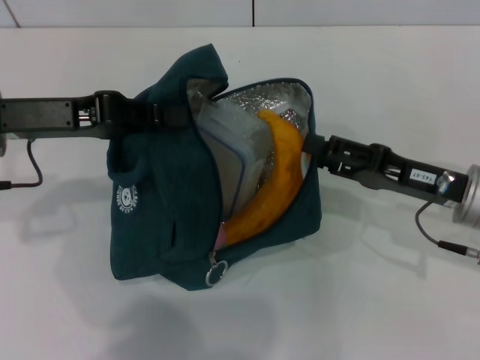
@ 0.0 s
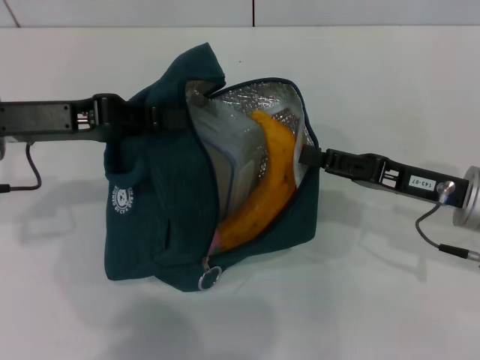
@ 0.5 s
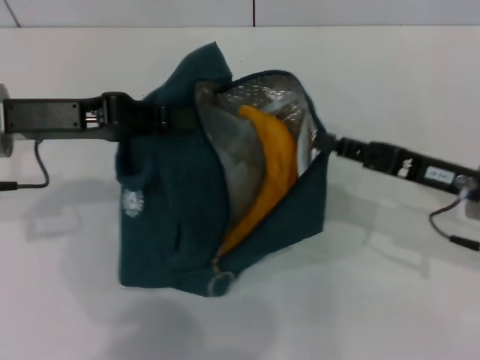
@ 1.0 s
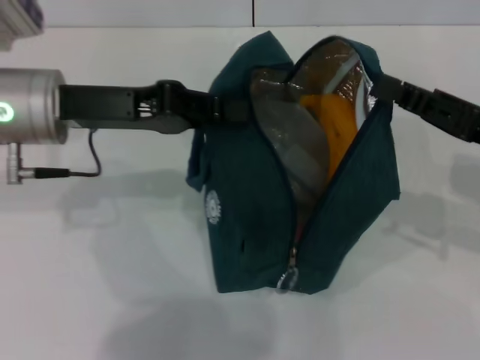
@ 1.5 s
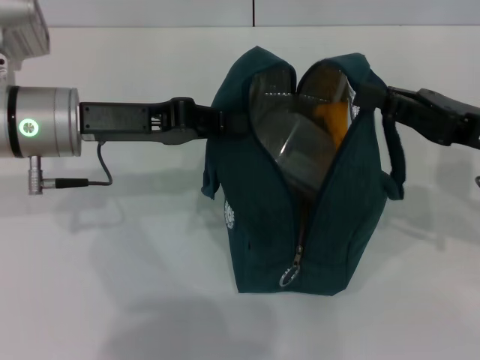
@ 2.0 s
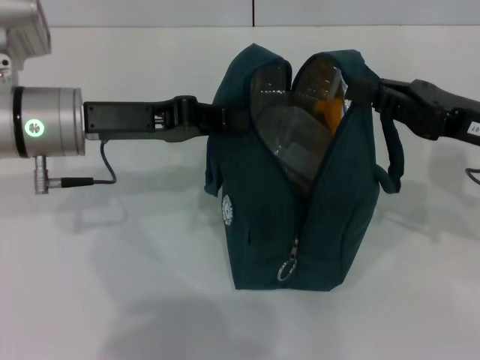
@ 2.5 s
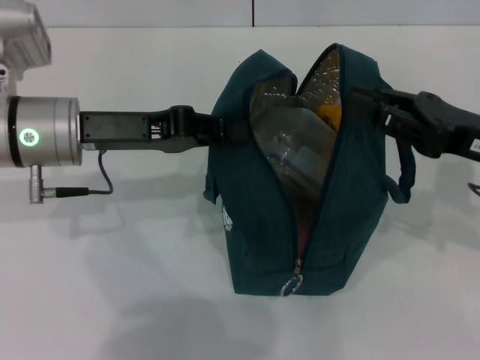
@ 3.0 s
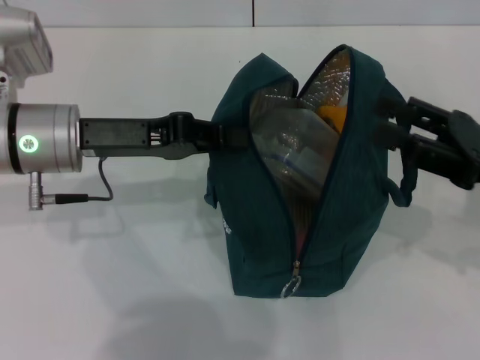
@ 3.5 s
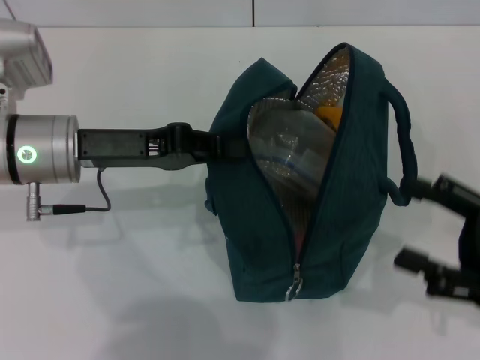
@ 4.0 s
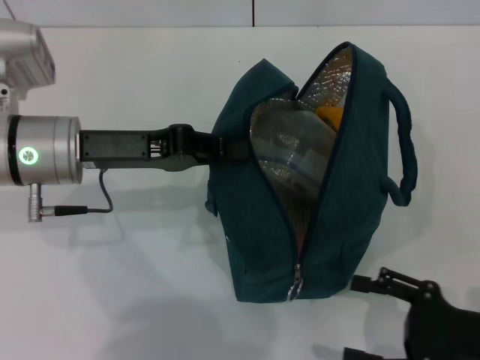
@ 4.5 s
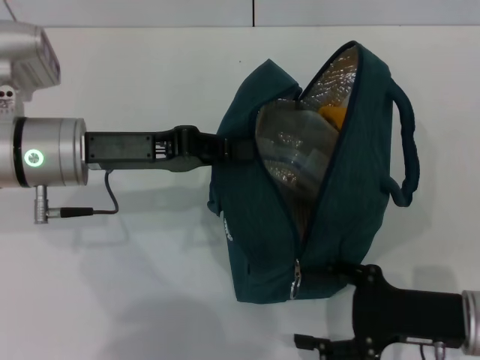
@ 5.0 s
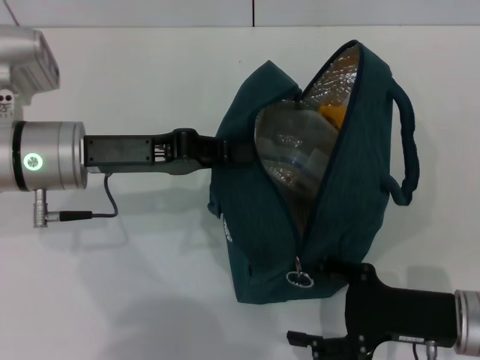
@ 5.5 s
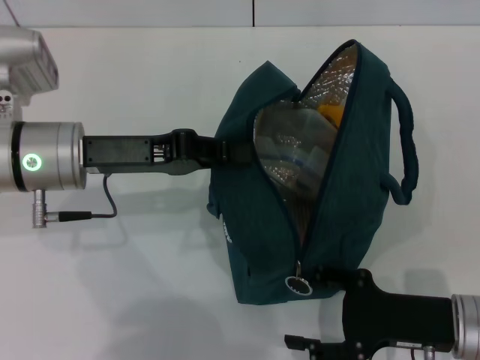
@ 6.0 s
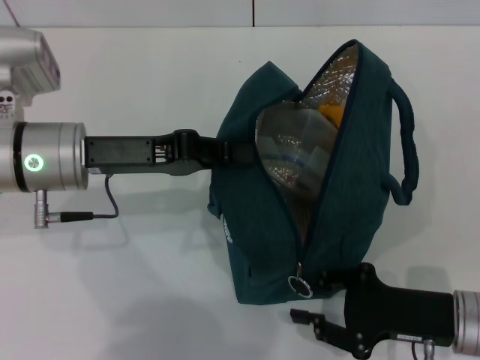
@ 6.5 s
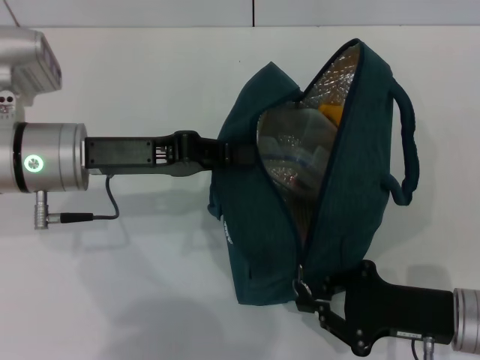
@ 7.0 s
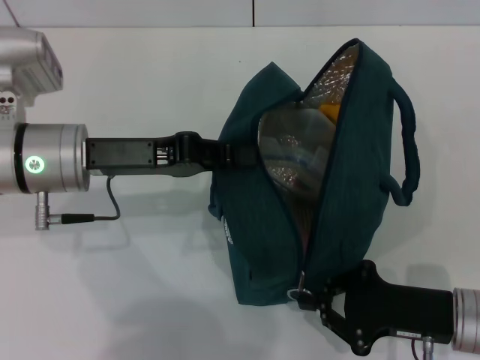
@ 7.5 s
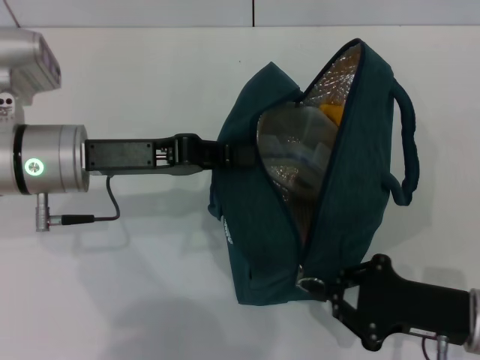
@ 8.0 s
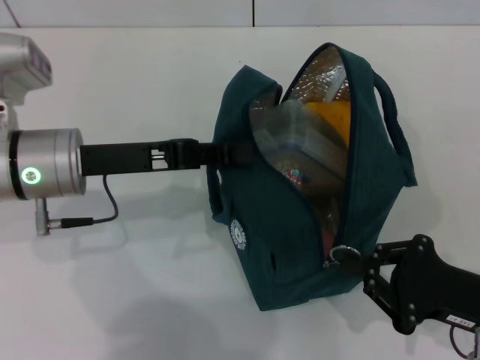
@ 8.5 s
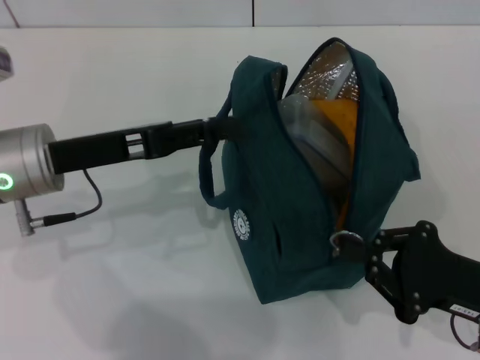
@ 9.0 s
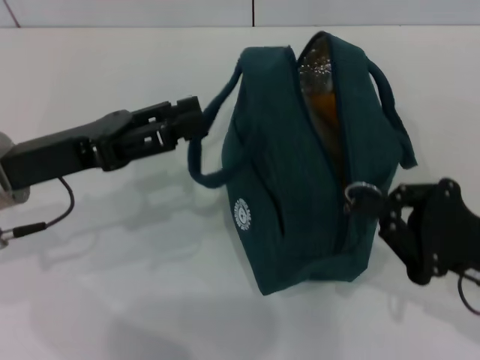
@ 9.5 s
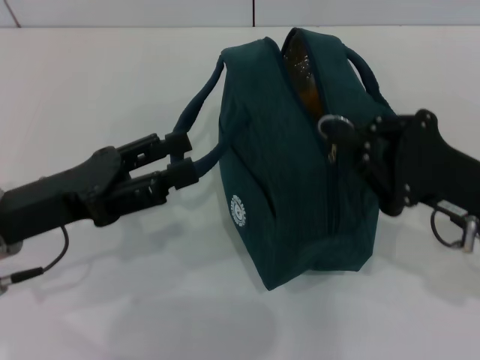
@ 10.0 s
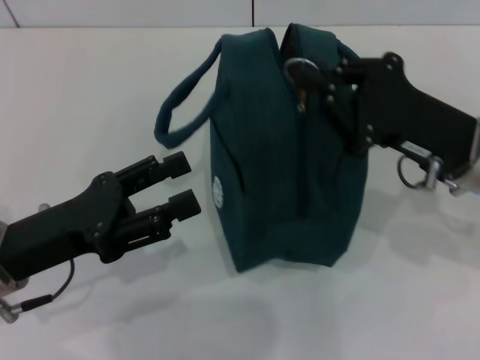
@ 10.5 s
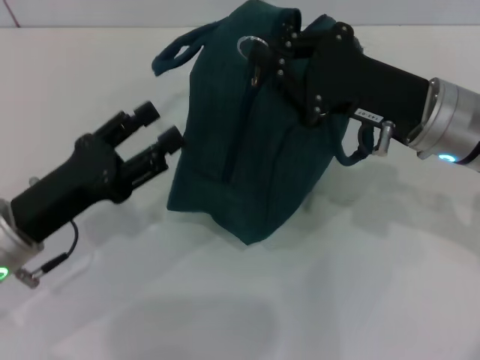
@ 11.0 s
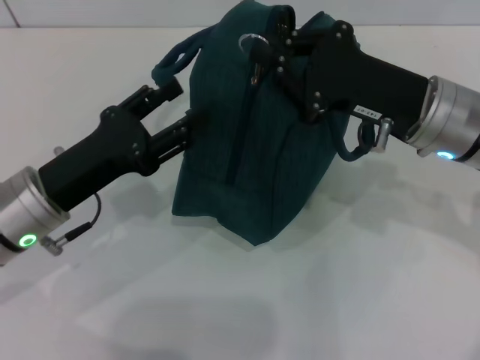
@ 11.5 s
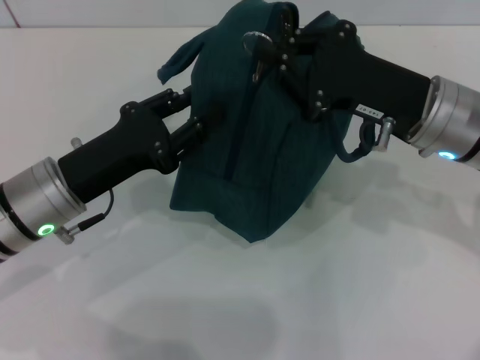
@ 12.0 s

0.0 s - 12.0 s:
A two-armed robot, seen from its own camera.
Step, 0.0 s - 3.5 s: Hold the lunch bag with your right hand.
Step, 4.0 s - 9.0 s: Hold the lunch bag with your left hand.
0.0 s - 2.0 s: The left gripper goes about 5 cm to the right; the right gripper heads upward, covering approximately 5 cm, and closes its fingers.
2.0 s - 4.0 s: The right gripper travels backward and downward by some 10 cm, and opens up.
4.0 s - 6.0 s: The right gripper shifts some 10 cm to the left and downward.
6.0 s - 8.0 s: The right gripper closes.
8.0 s - 10.0 s: The right gripper goes roughly 10 cm upward; the left gripper travels backward by approximately 5 cm, and opens its fingers.
10.0 s - 12.0 s: The left gripper ends up some 5 cm from where it was; the right gripper goes approximately 10 cm forward and to the left.

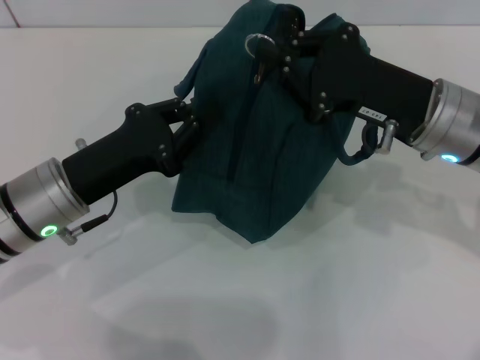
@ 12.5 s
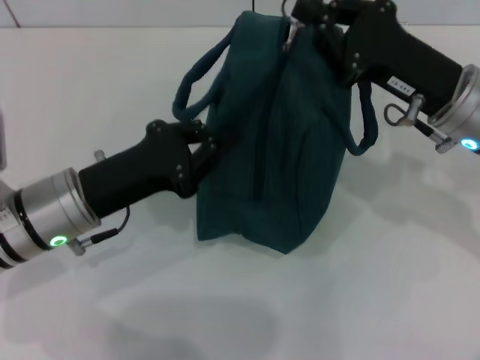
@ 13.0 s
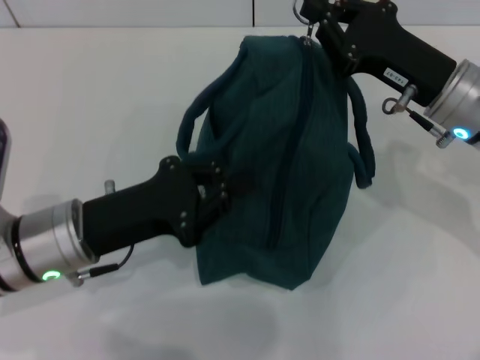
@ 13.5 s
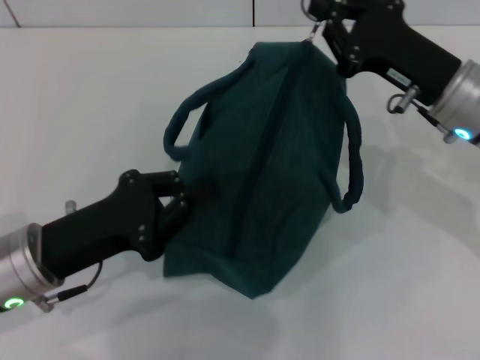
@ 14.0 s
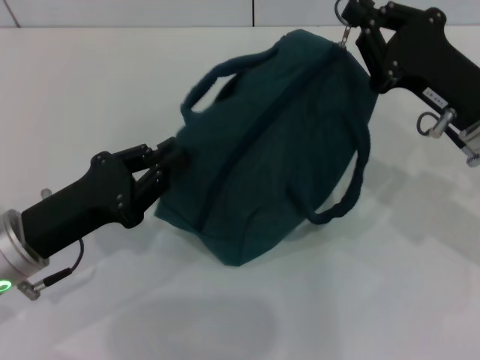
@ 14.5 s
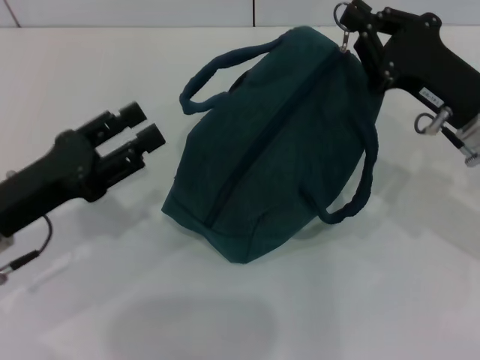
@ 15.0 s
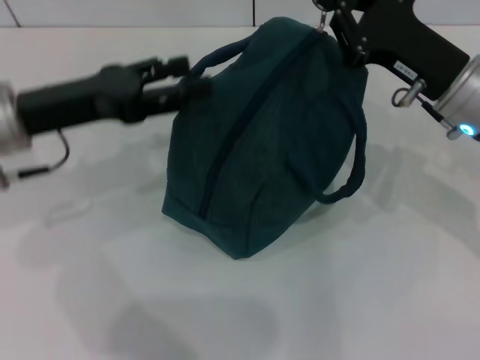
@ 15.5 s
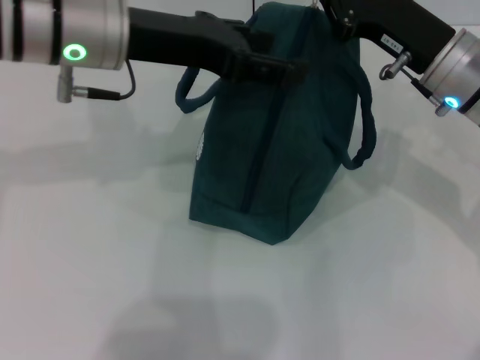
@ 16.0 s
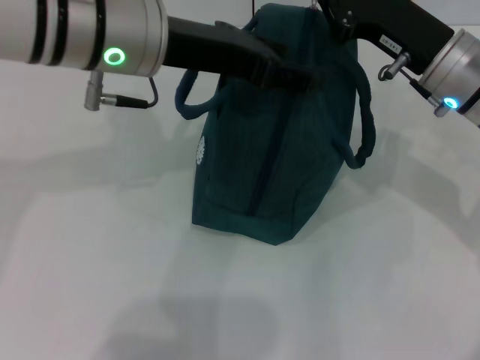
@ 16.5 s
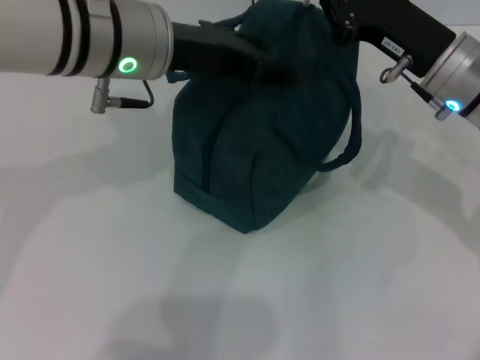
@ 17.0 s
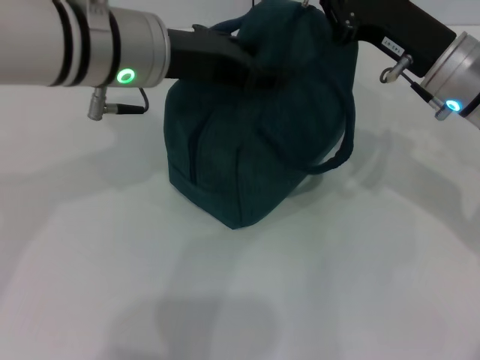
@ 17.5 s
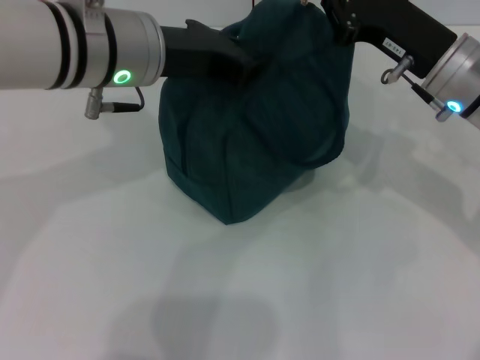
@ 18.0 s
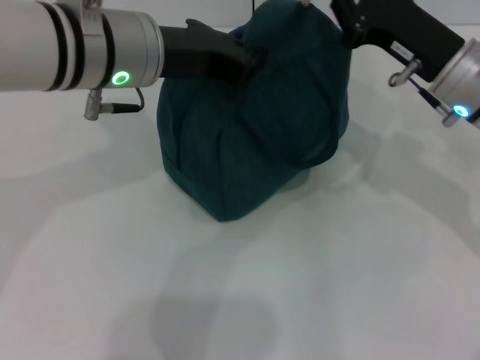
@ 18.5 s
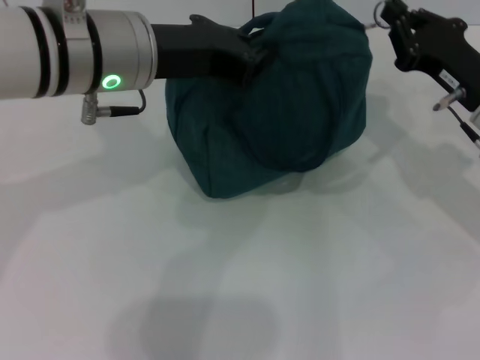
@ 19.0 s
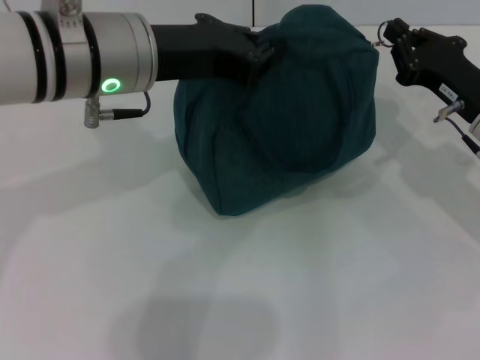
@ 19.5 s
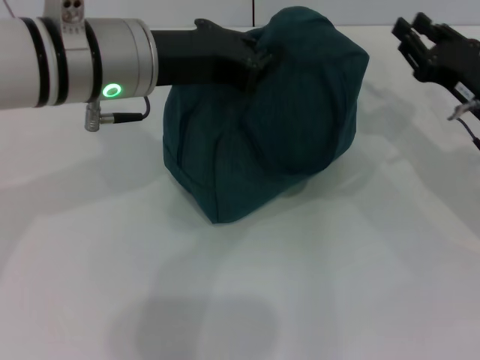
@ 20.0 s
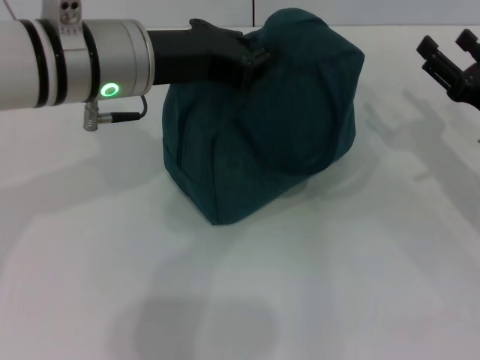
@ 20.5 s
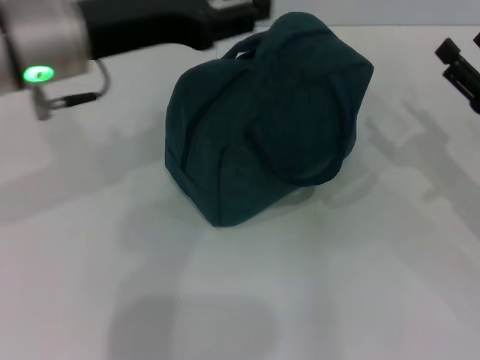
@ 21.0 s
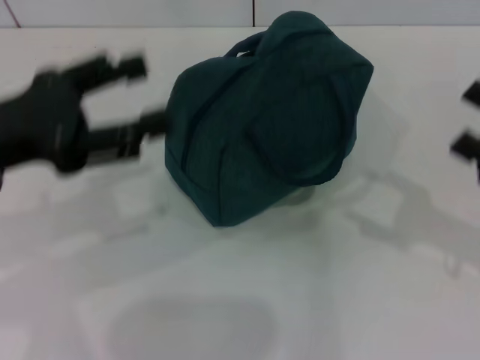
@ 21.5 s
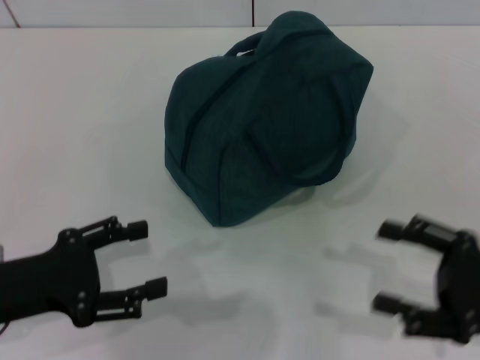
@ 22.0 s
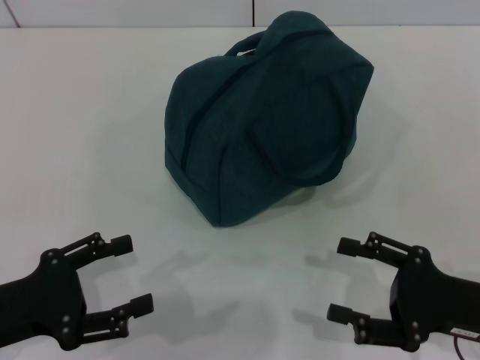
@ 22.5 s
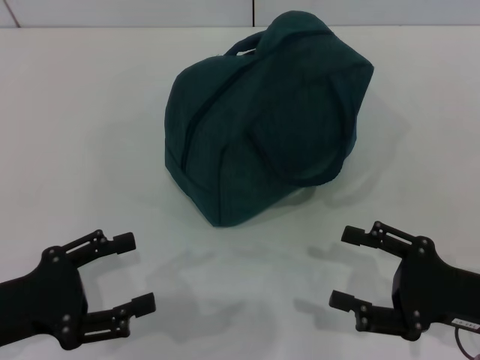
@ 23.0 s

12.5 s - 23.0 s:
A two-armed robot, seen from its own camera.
Step, 12.5 s - 20.0 s: Zip up the lunch bag with your right hand.
Step, 20.5 s - 21.0 s: Hold the lunch bag with your left hand.
12.5 s - 14.5 s: The left gripper changes place by roughly 5 cm.
14.5 s - 16.5 s: The right gripper moves forward, approximately 5 cm, while the left gripper goes approximately 25 cm upward, to the right and forward, and opens.
16.5 s - 19.0 s: The left gripper closes its fingers. Meanwhile the right gripper heads to the right, covering approximately 5 cm.
19.0 s - 21.0 s: The right gripper heads backward and to the right, covering approximately 10 cm, and opens; the left gripper shifts some 5 cm to the left, and opens.
21.0 s - 23.0 s: The right gripper is displaced backward by approximately 10 cm. The left gripper is displaced downward, backward and to the left by approximately 25 cm, and opens its fingers.

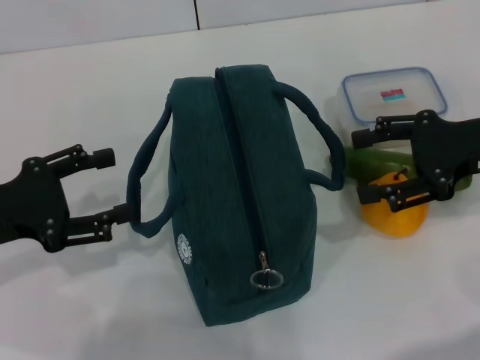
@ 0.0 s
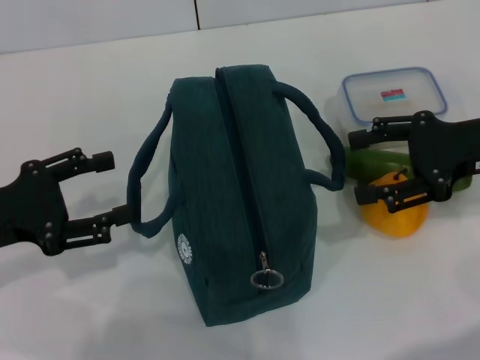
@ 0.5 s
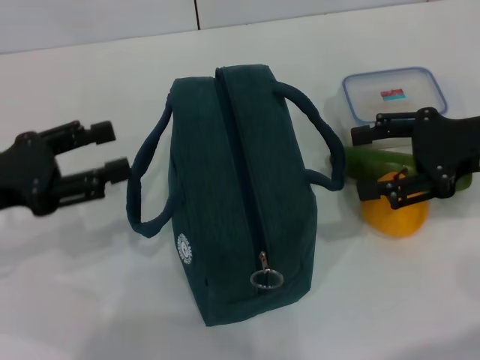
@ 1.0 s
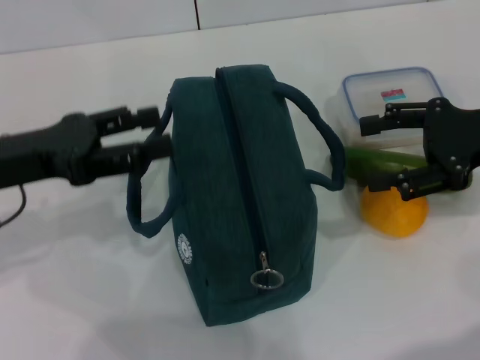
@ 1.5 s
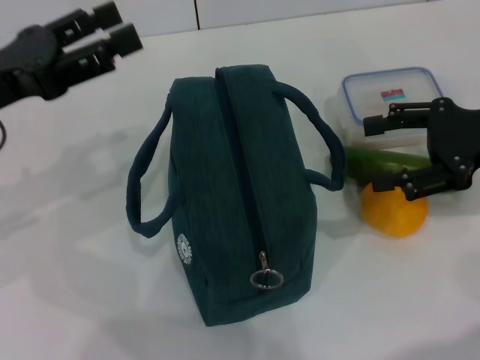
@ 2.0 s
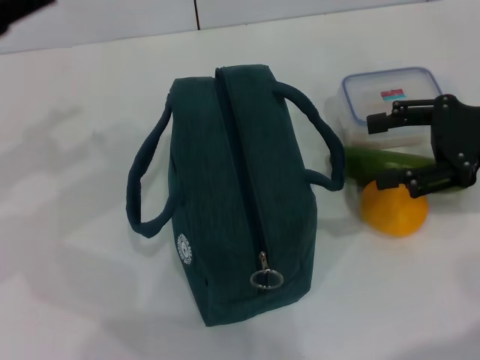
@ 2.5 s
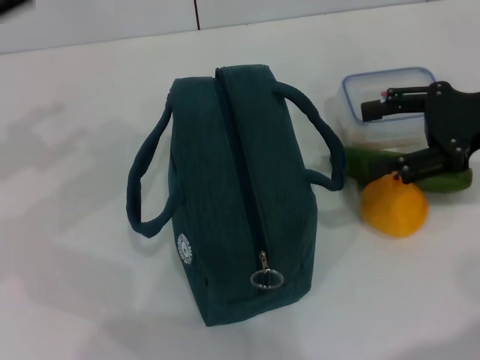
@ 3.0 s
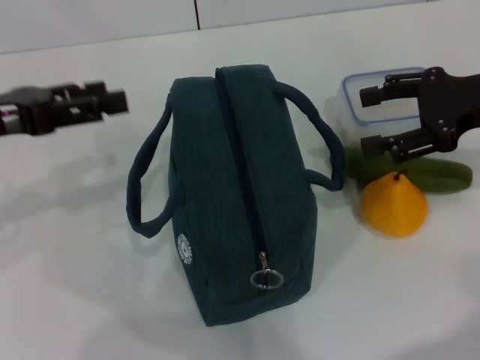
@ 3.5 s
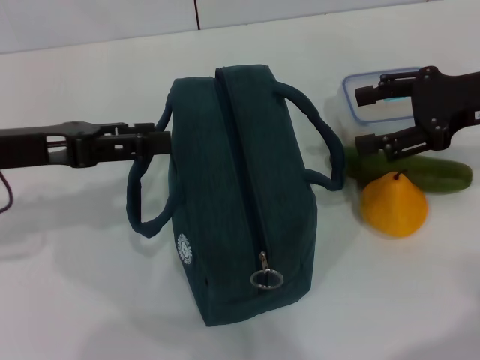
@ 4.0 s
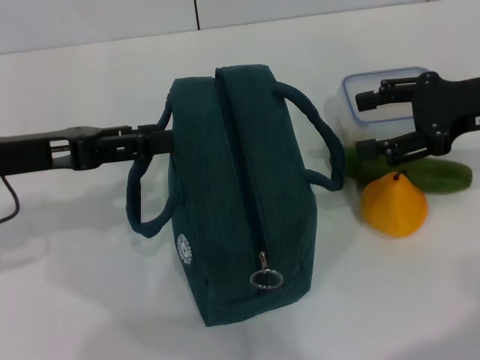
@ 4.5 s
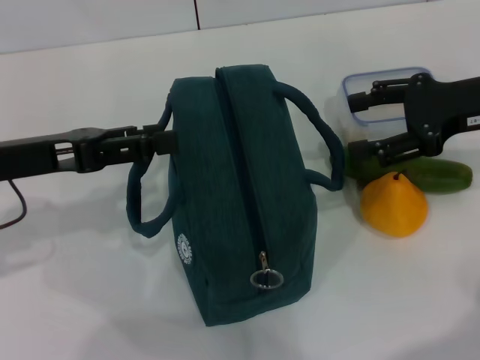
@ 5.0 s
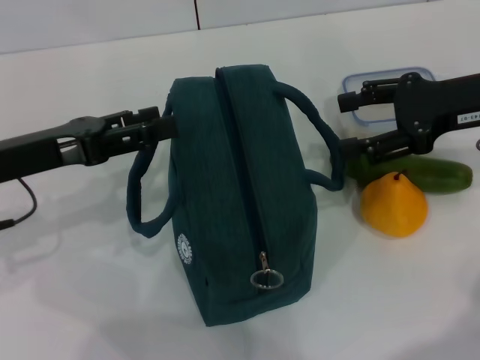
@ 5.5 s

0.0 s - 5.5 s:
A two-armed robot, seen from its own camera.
0.0 s - 2.0 s: The left gripper heads upward, covering some 5 cm.
3.5 s - 5.5 s: The left gripper moves roughly 5 cm.
